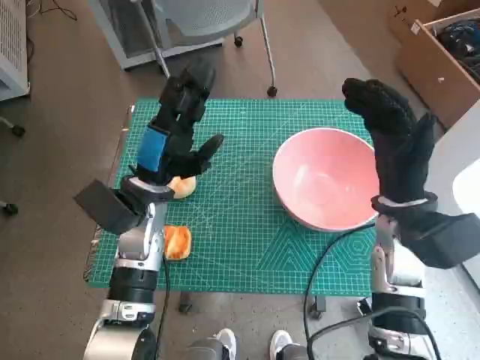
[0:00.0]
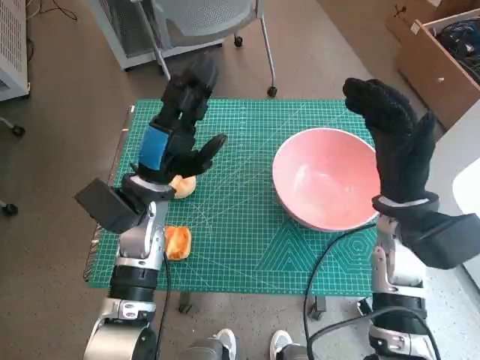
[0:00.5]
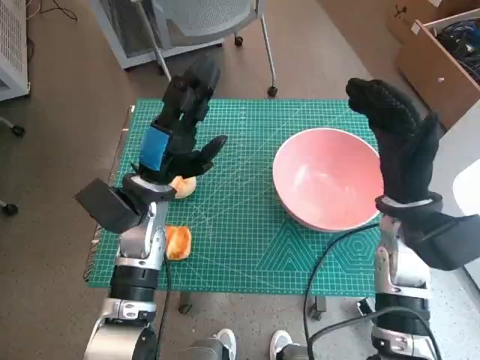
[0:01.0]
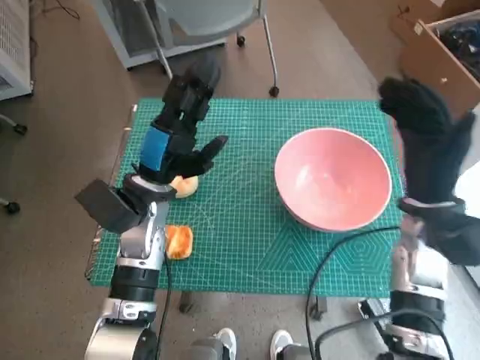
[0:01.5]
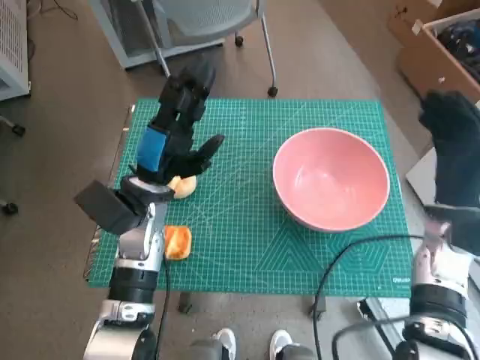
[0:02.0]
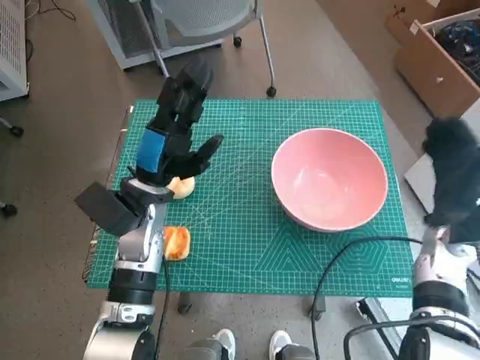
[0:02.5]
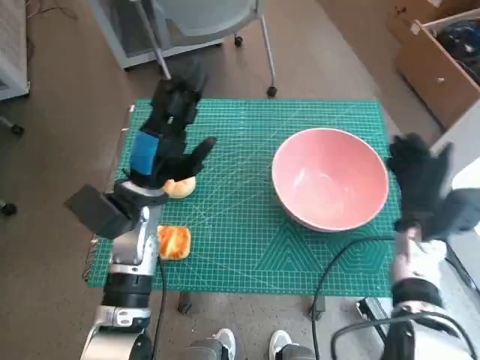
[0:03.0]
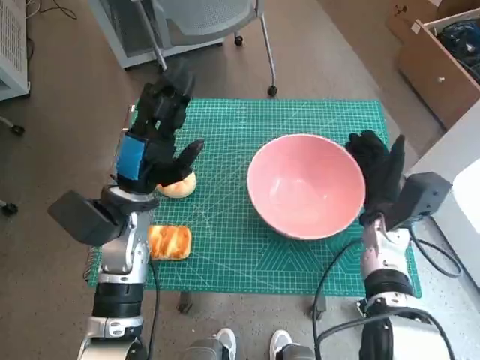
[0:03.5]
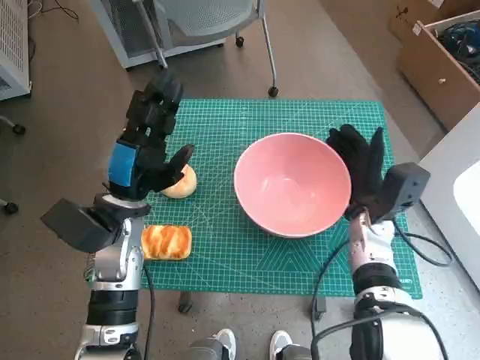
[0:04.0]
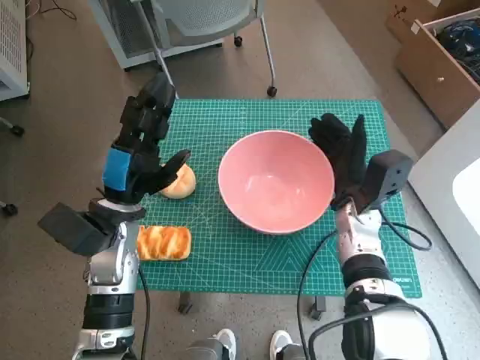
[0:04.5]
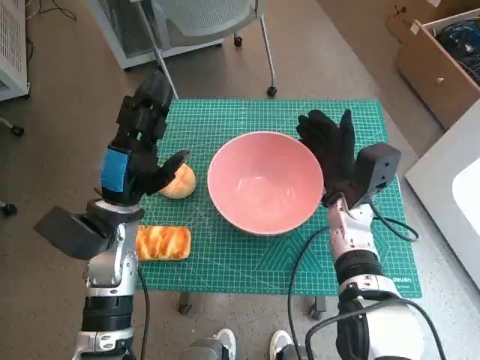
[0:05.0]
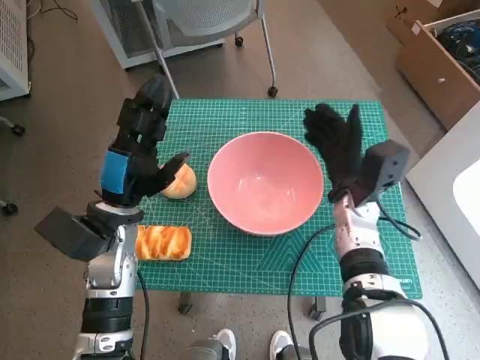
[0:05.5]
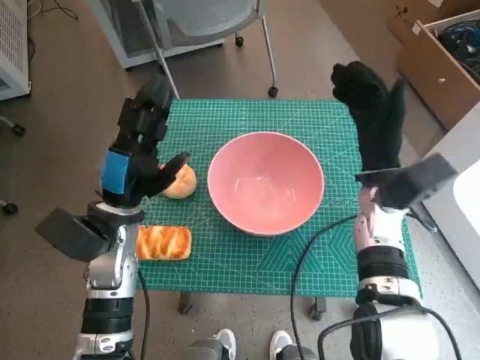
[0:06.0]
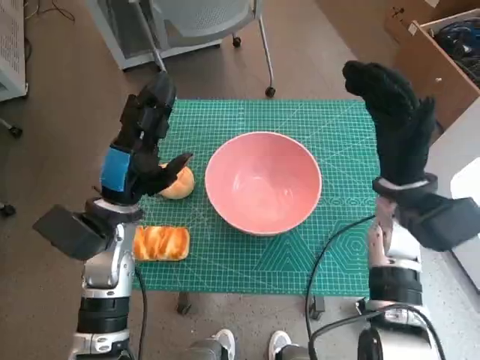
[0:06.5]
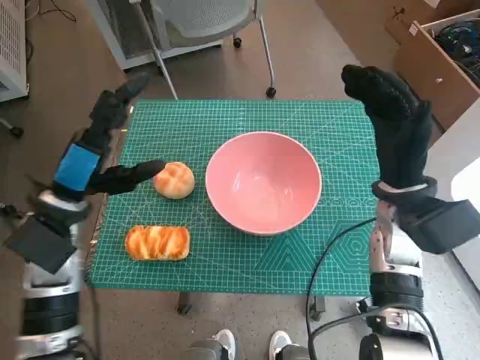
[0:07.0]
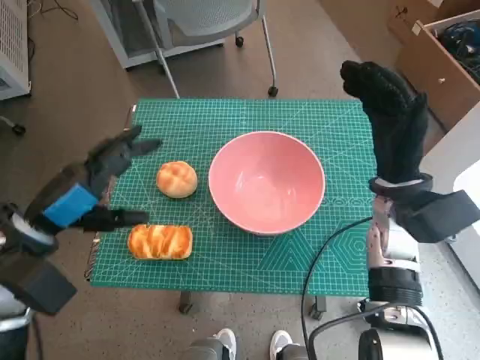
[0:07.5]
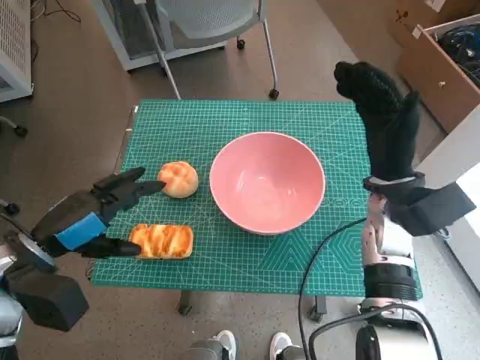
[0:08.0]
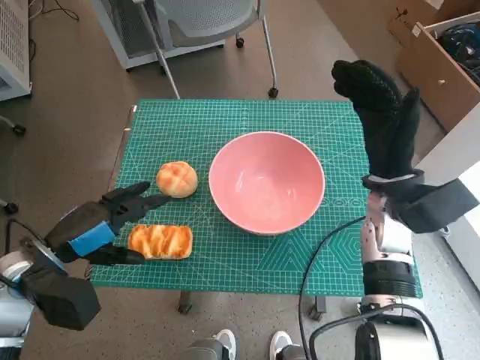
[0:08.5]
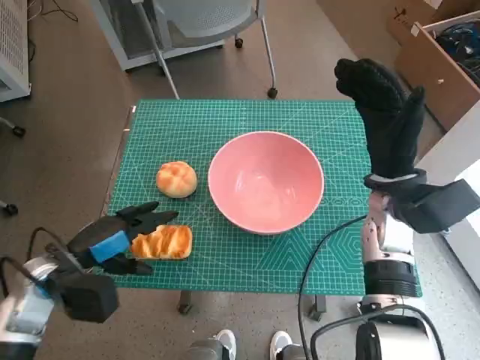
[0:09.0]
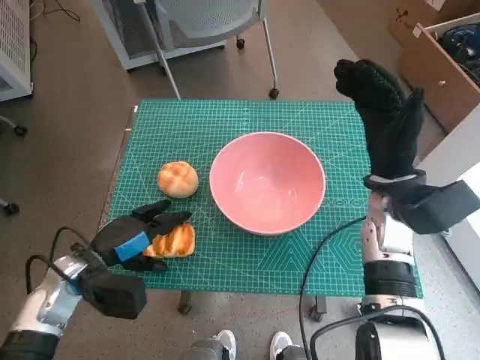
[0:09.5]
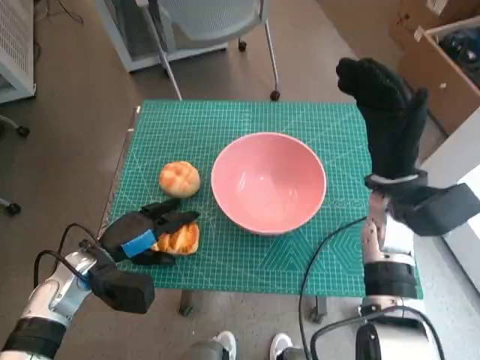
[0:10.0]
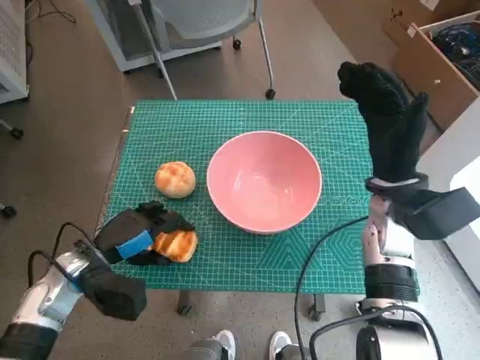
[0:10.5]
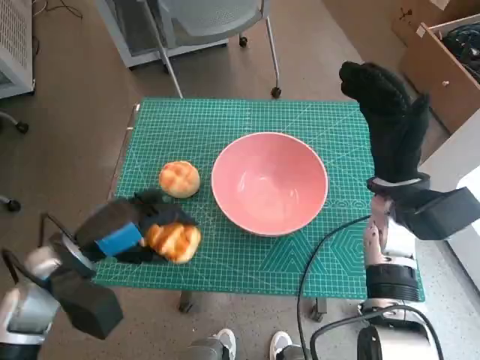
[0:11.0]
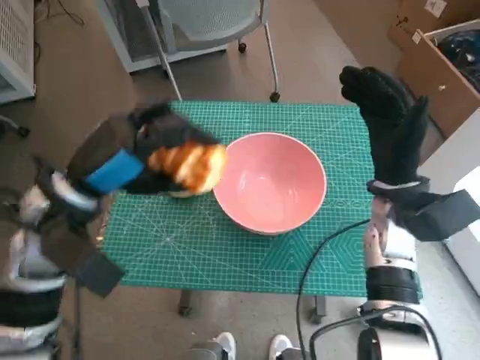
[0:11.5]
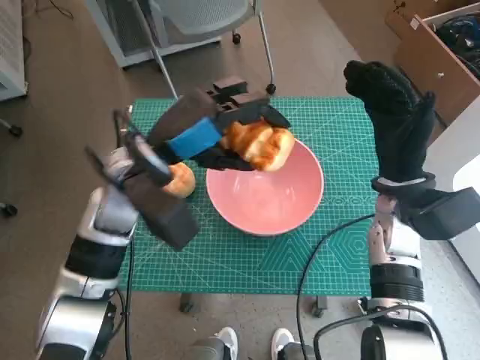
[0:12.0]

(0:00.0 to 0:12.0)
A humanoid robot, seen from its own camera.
Step, 0:00.0 - 0:05.0: Move the pink bowl to the center of table with right hand.
Step, 0:05.5 - 0:10.0: Grasp the long bread with left hand.
0:02.0 - 0:04.0: The right hand is displaced to the left and downward by roughly 10 cm.
0:04.0 - 0:06.0: The right hand moves upward, approximately 5 cm.
0:06.0 - 0:08.0: The left hand moves to the left and backward, roughly 10 cm.
0:08.0 - 0:10.0: The left hand goes about 10 cm downward.
0:10.0 - 0:12.0: The left hand travels upward, to the right and forward by about 20 cm.

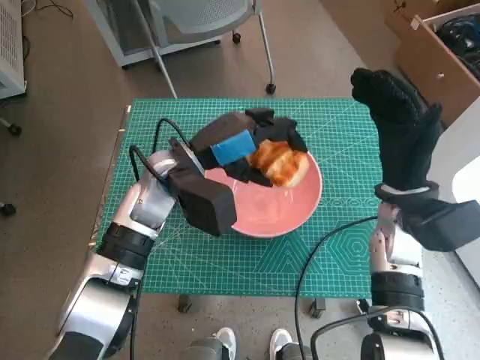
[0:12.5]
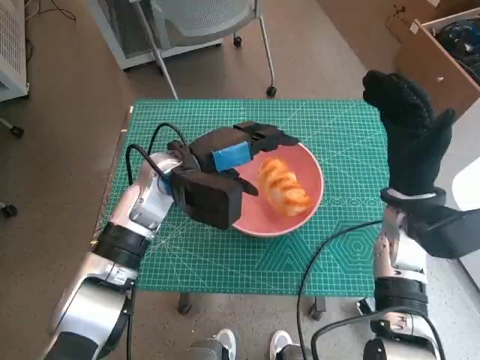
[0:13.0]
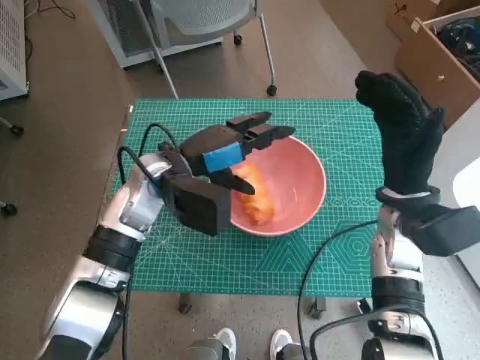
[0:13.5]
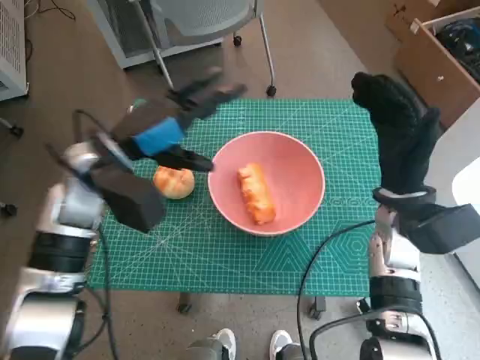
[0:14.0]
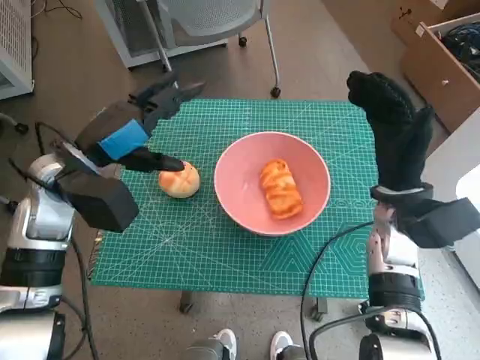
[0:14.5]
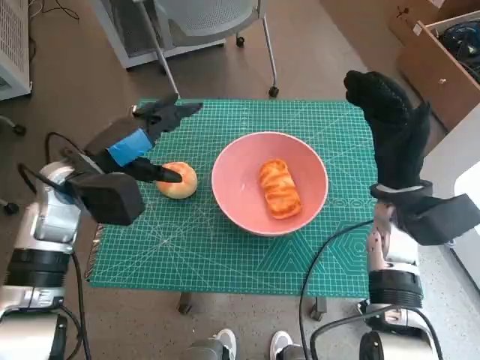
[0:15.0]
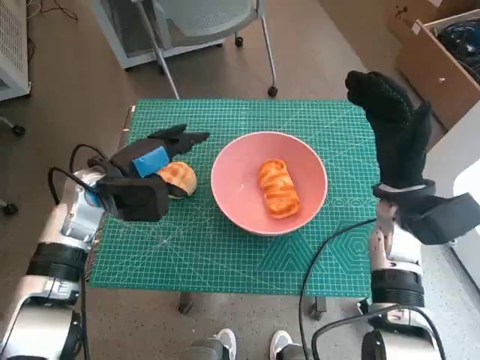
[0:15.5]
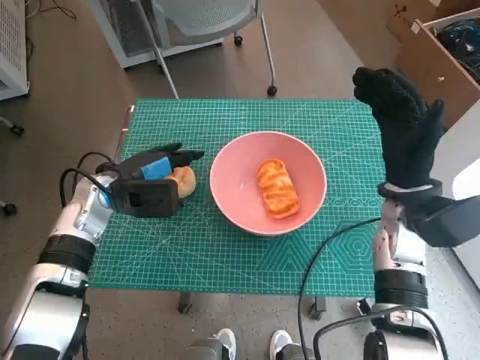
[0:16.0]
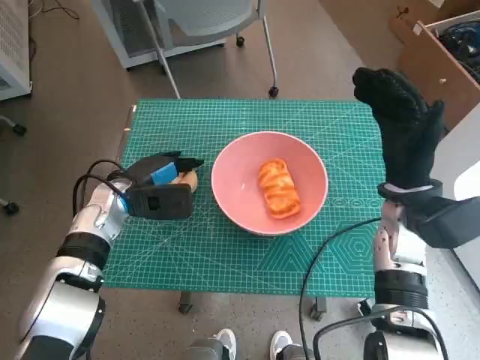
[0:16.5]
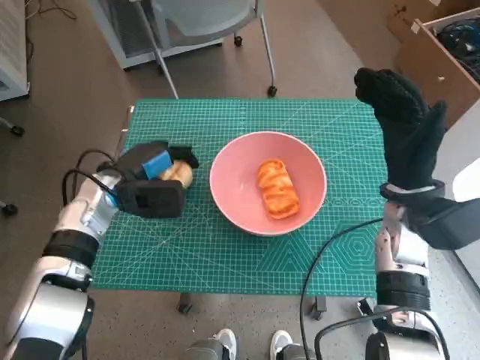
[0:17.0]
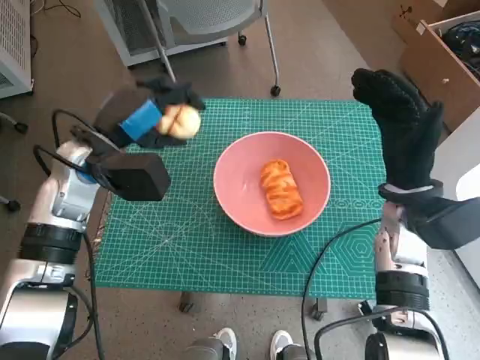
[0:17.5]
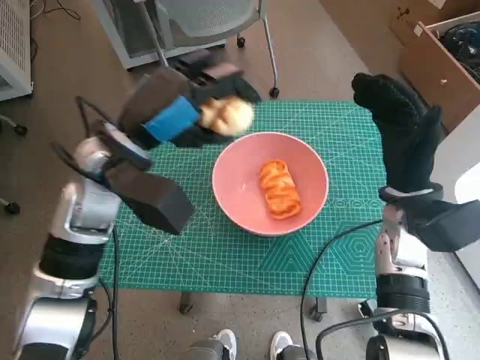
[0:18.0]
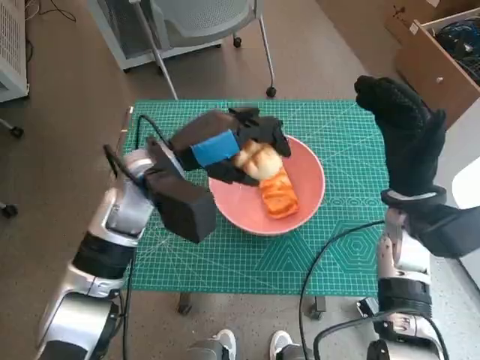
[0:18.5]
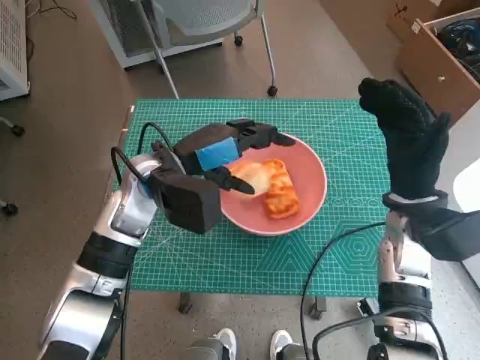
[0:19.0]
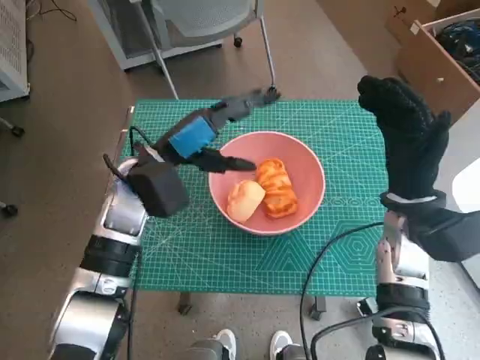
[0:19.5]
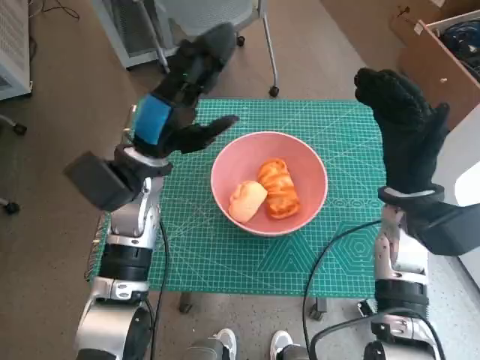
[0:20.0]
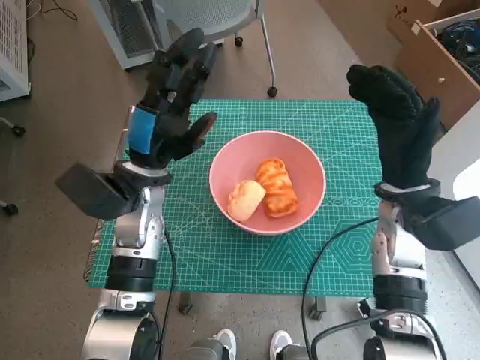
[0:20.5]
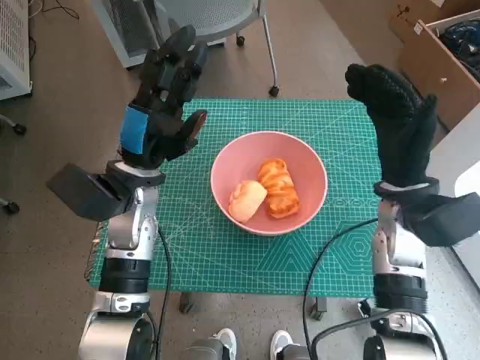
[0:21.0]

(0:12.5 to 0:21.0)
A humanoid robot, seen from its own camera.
Step, 0:13.5 - 0:16.5: Grasp the round bread with left hand.
Step, 0:17.0 - 0:19.0: Place the round bread in pink bowl with left hand.
0:12.5 - 0:14.5: The left hand travels to the left by roughly 10 cm.
0:14.5 - 0:16.5: The left hand is displaced downward by about 10 cm.
0:16.5 - 0:19.0: The left hand heads upward and to the right, covering approximately 10 cm.

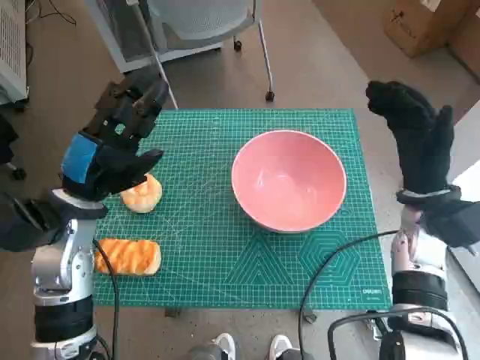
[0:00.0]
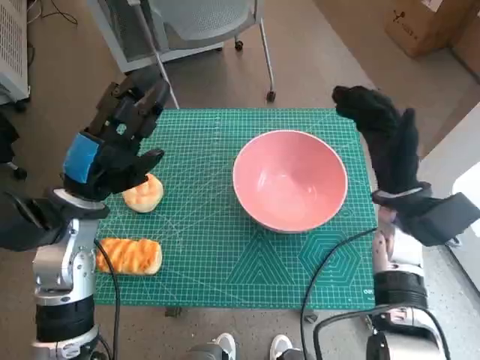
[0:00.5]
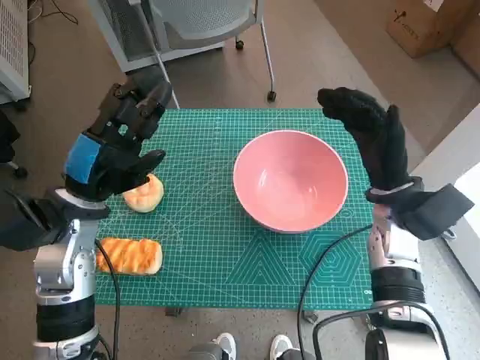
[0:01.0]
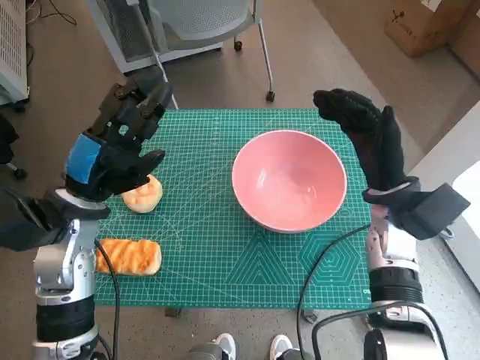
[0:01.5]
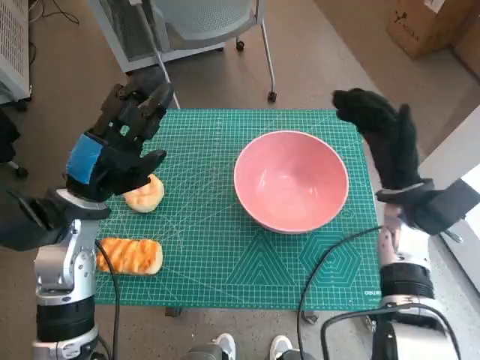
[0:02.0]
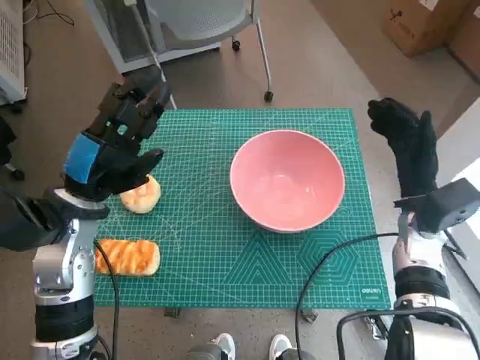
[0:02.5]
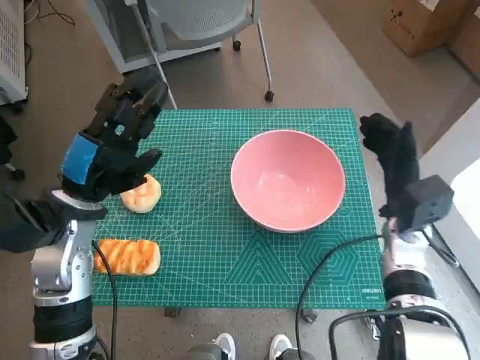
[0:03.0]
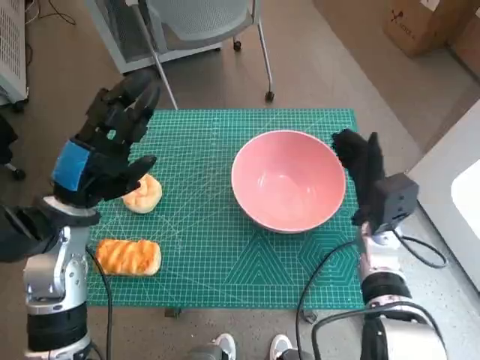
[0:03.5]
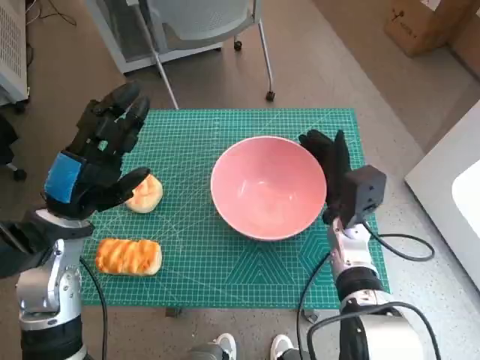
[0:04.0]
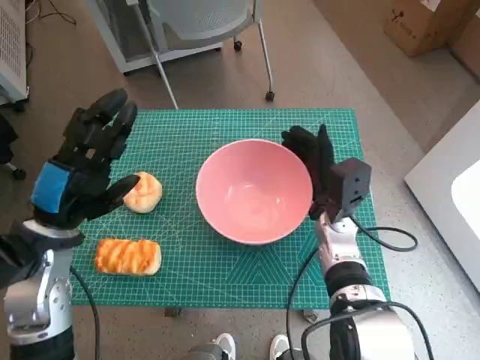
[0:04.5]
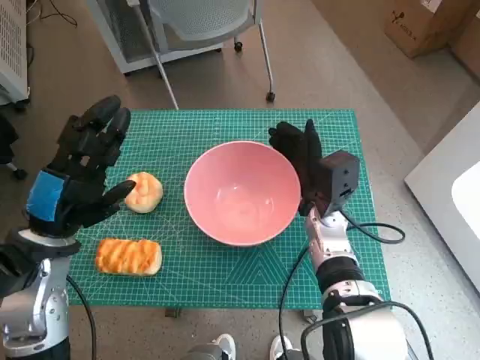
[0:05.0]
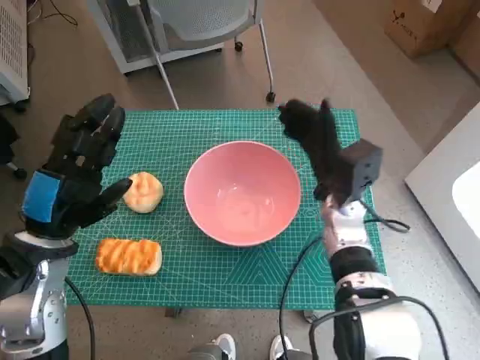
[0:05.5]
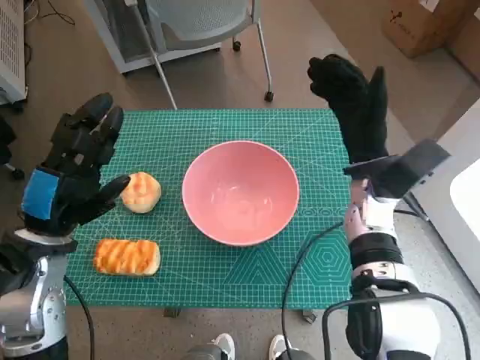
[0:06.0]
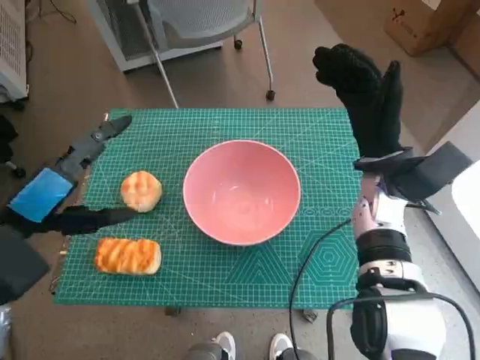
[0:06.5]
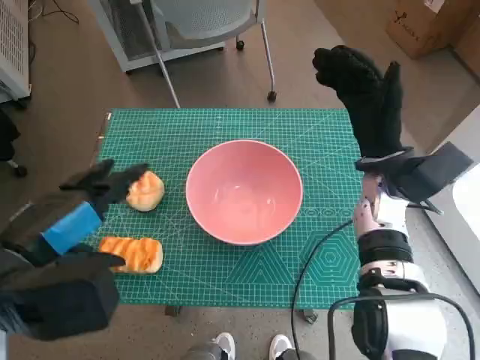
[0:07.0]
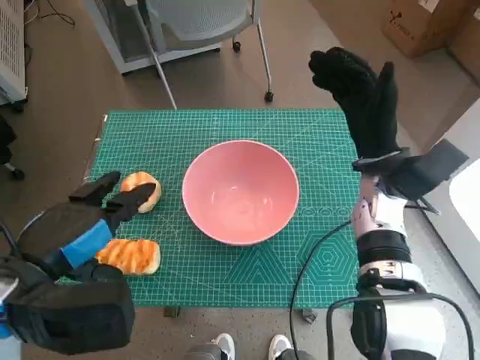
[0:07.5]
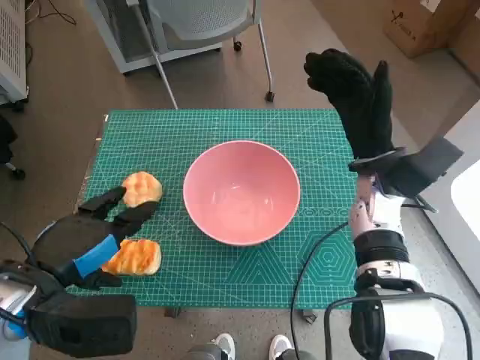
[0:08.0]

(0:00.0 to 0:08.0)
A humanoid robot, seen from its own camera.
Step, 0:00.0 - 0:05.5: Move the pink bowl to the center of table with right hand.
0:02.0 - 0:04.0: The right hand shifts about 10 cm downward and to the left.
0:04.0 - 0:06.0: The right hand is displaced upward by about 10 cm.
0:06.0 - 0:08.0: The left hand travels backward by about 5 cm.
